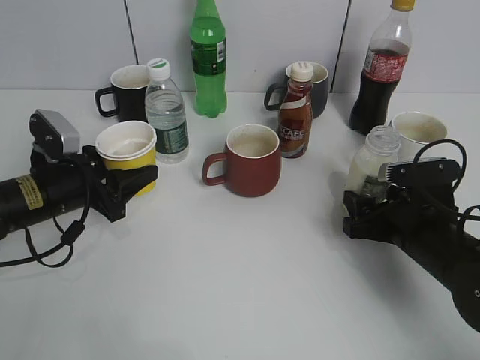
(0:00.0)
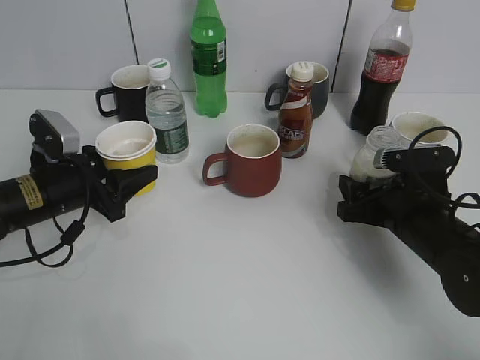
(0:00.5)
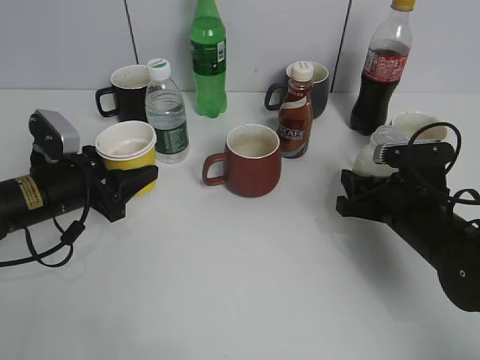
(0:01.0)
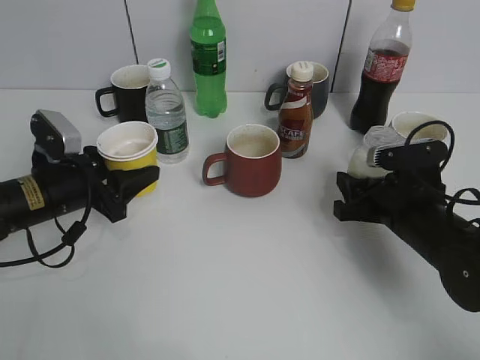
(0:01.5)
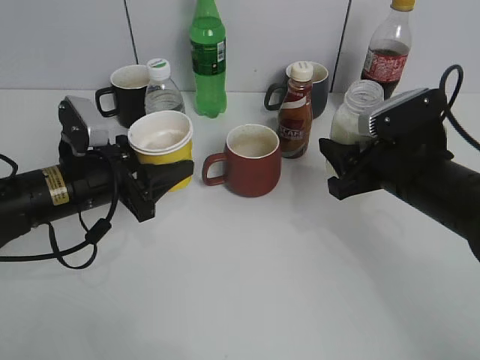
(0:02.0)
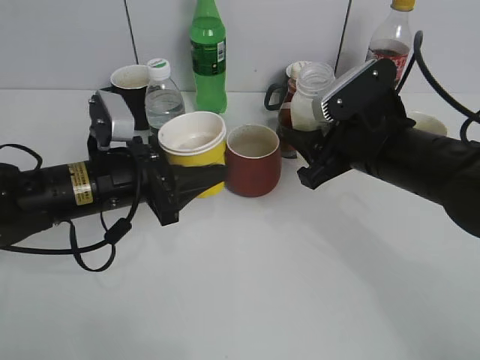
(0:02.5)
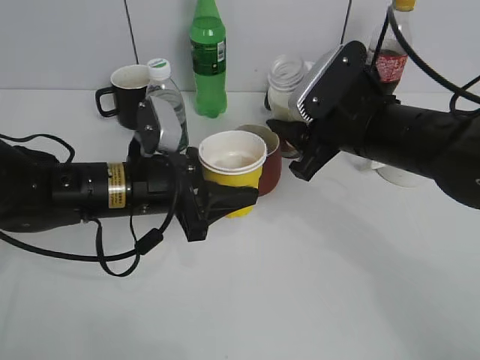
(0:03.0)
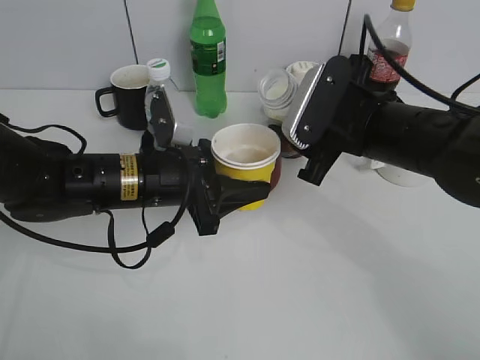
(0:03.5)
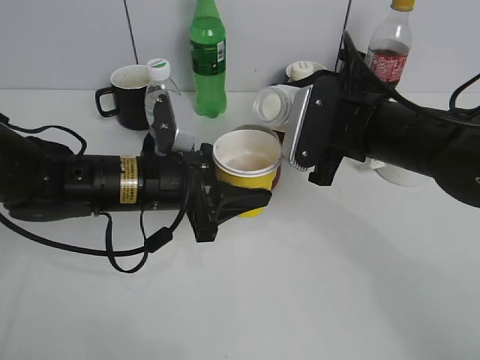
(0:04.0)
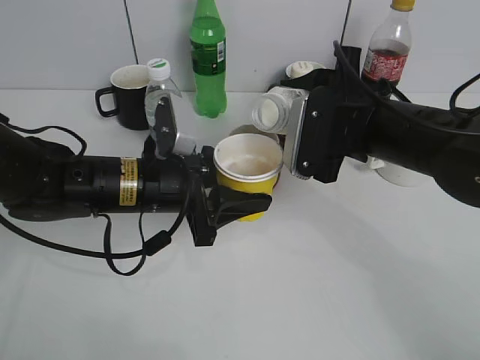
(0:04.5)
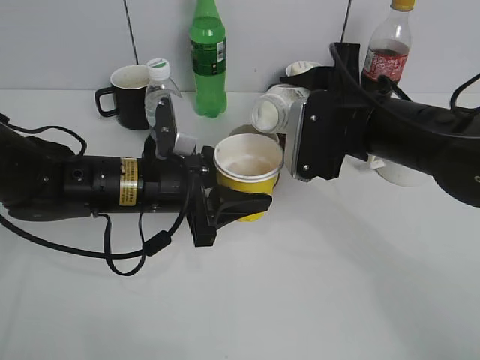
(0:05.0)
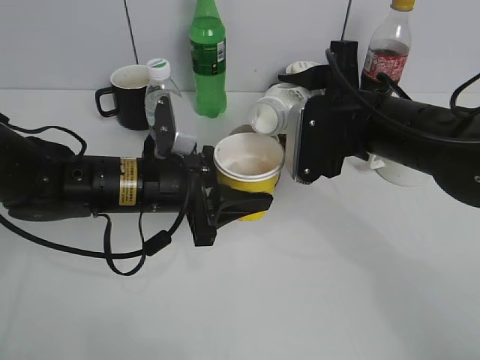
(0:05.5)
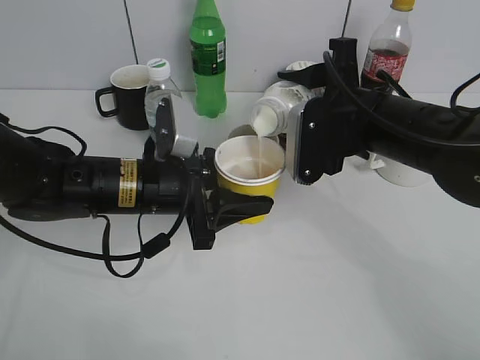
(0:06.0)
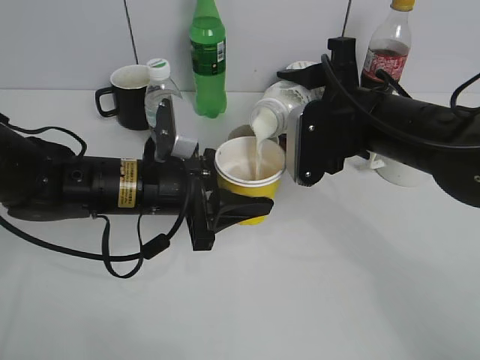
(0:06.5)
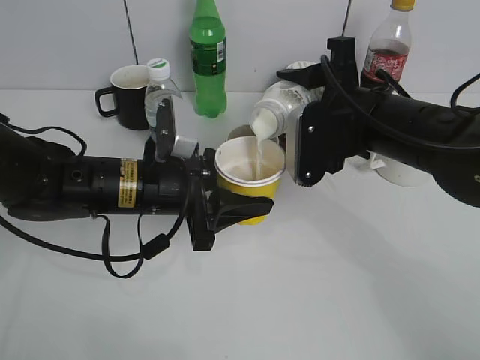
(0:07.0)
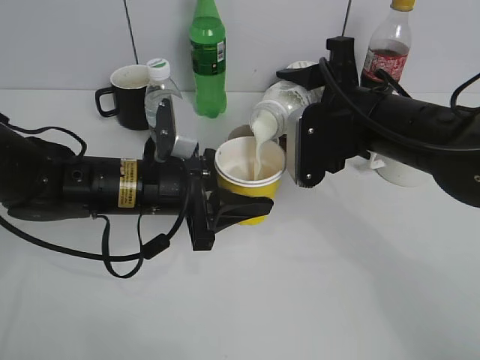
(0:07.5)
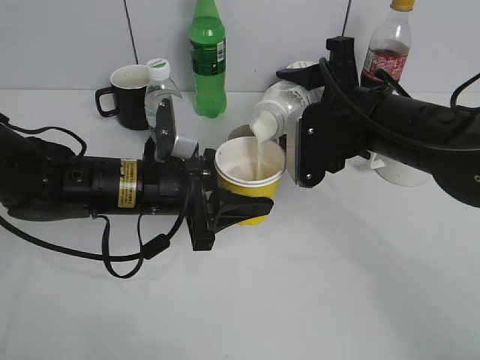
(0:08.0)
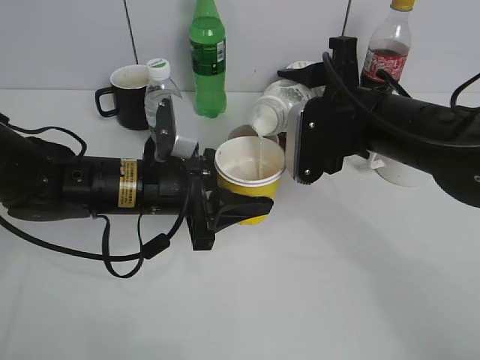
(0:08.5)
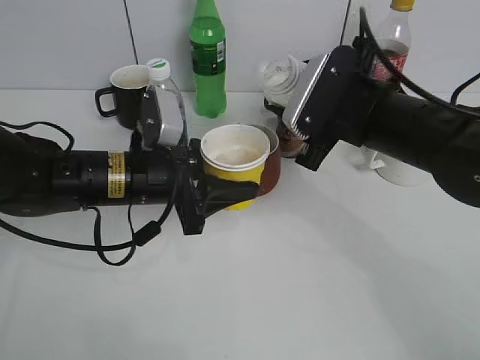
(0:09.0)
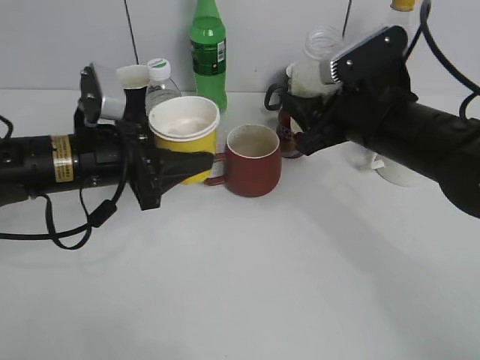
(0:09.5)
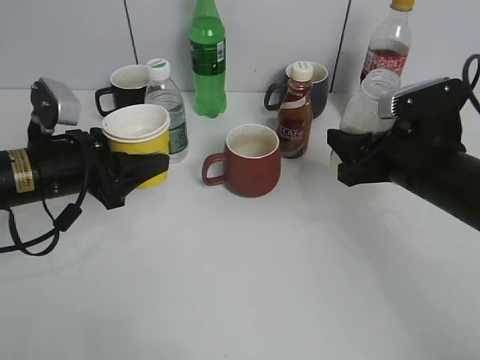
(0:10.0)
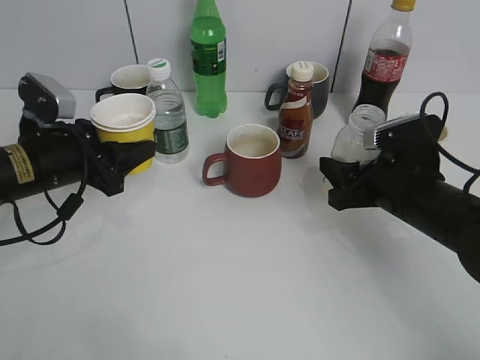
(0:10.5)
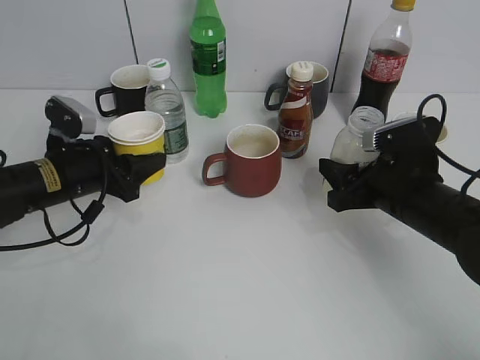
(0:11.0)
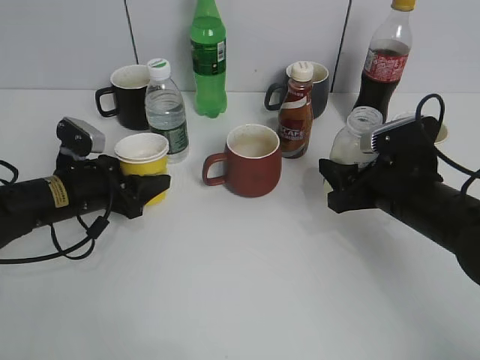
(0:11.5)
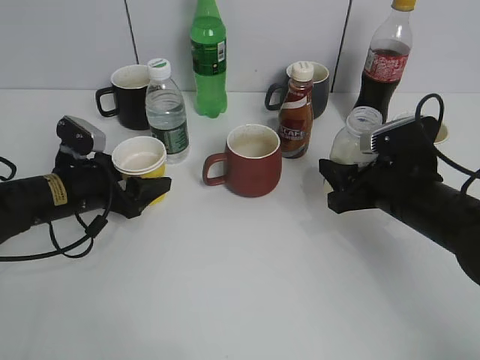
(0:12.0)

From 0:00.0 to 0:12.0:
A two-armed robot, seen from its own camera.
Step, from 0:01.5 to 0:08.5: Pour the yuexian Milk from bottle to cup with right gripper.
From 0:00.0 to 0:02.0: The left gripper changes place by approximately 5 cm. Meanwhile the right gripper heads upward, covering approximately 5 cm, and closes its fingers.
From 0:02.0 to 0:04.0: The left gripper travels to the right by roughly 10 cm. Meanwhile the right gripper shifts about 5 cm to the left.
From 0:04.0 to 0:06.0: The grippers stay close to where they were, moving slightly.
From 0:06.0 to 0:08.0: Neither gripper changes place.
From 0:08.0 to 0:10.0: The right gripper travels to the right by about 5 cm; the left gripper is displaced to the left by some 10 cm.
From 0:10.0 to 0:12.0: The left gripper shifts some 5 cm downward, and opens.

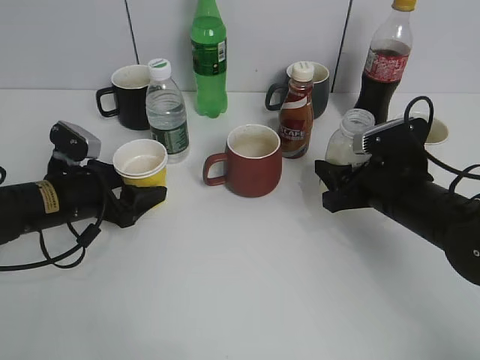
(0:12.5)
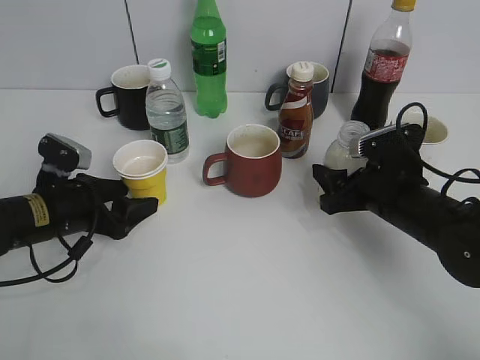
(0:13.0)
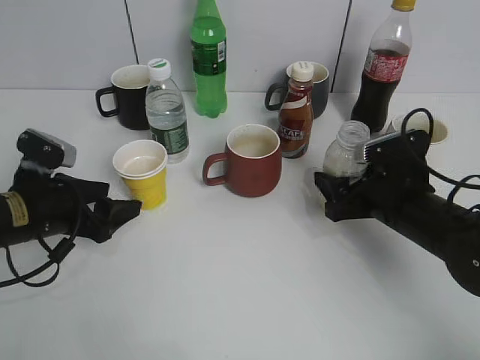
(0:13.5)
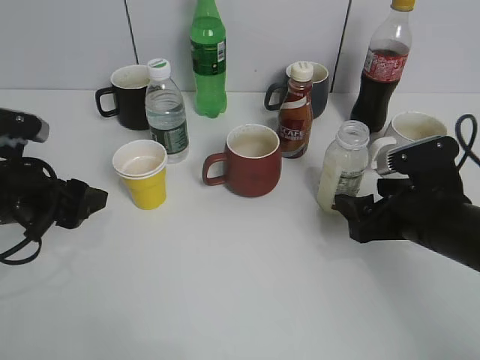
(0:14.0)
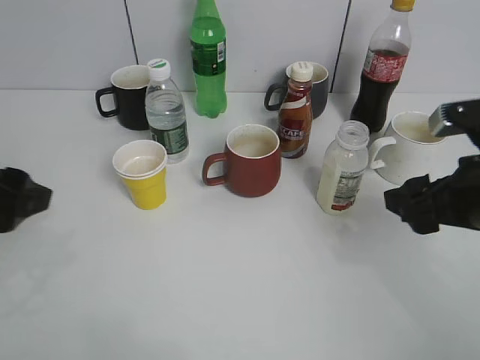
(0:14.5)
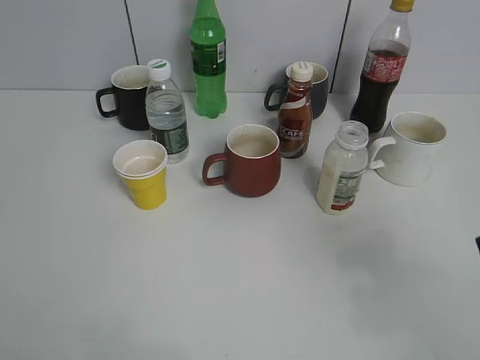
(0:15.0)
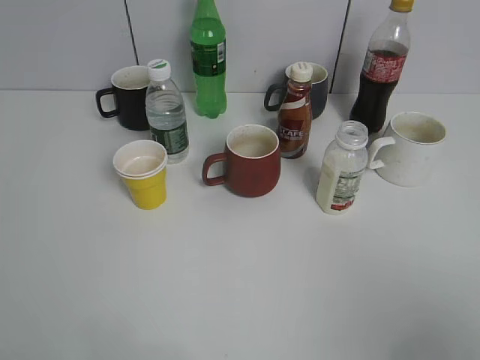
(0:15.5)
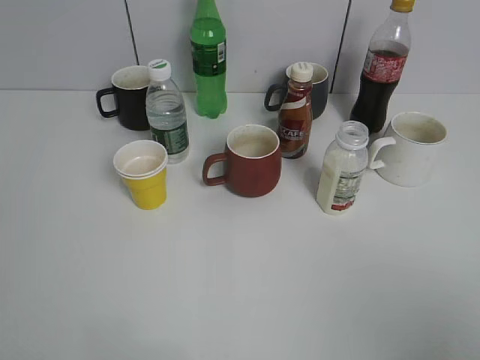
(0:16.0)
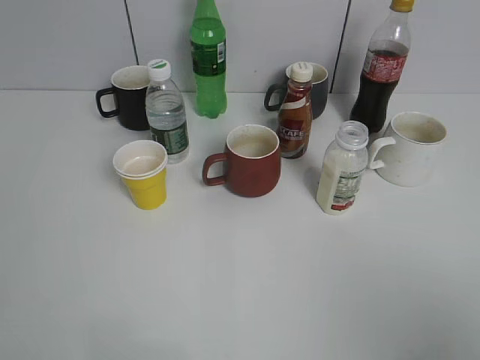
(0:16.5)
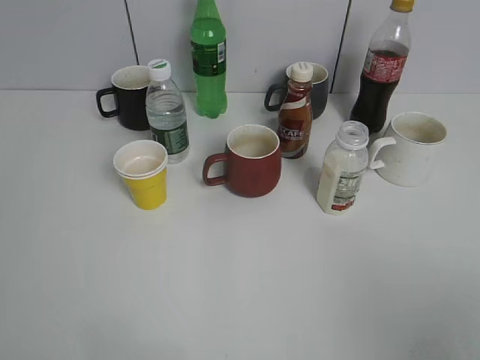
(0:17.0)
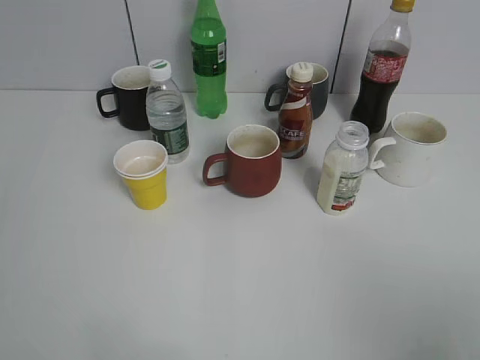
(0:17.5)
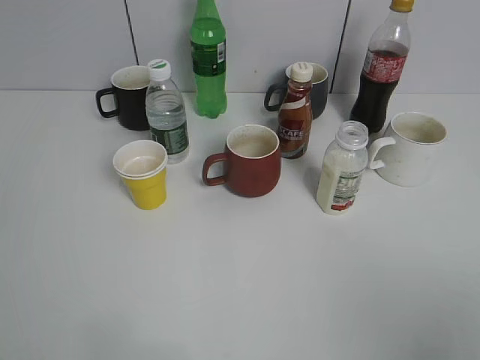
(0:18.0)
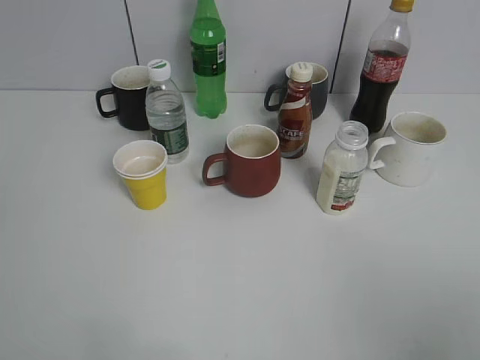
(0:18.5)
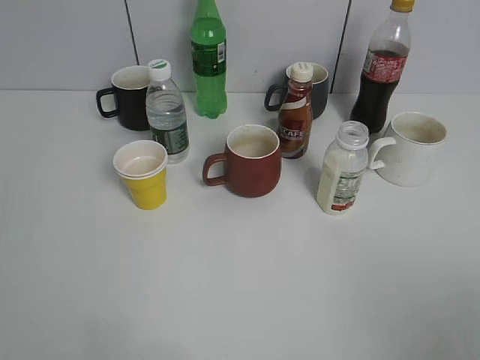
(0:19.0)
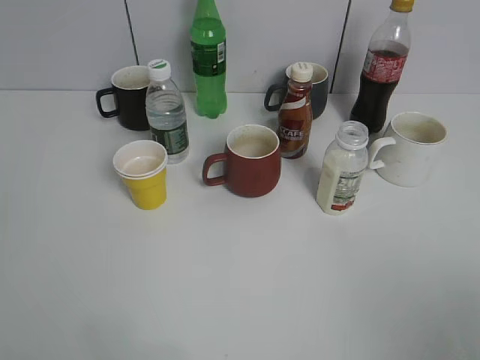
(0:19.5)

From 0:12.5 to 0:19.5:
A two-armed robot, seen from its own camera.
From 0:12.5 to 0:14.5: The right gripper travels upward and backward by roughly 10 cm, and opens up; the left gripper moves upward and backward, approximately 20 cm.
From 0:14.5 to 0:16.0: The left gripper heads backward, covering roughly 20 cm; the right gripper moves backward and upward, about 25 cm.
